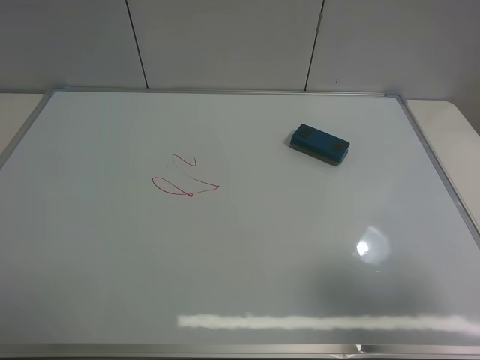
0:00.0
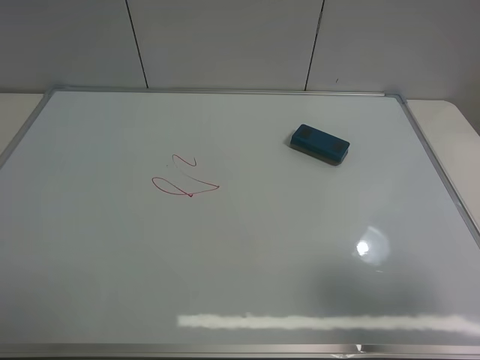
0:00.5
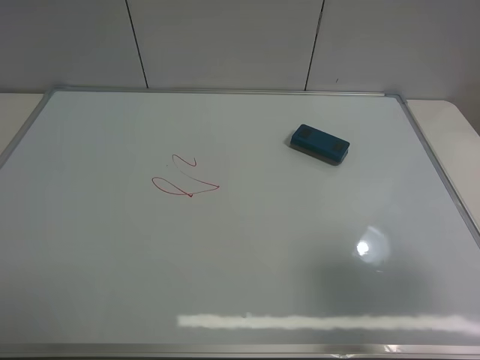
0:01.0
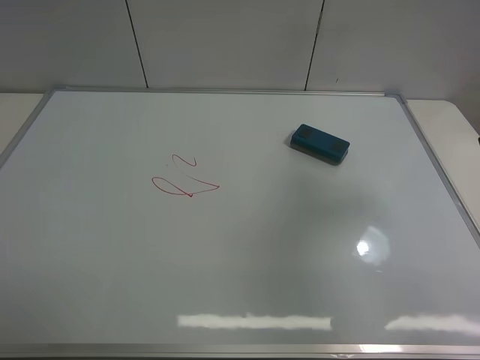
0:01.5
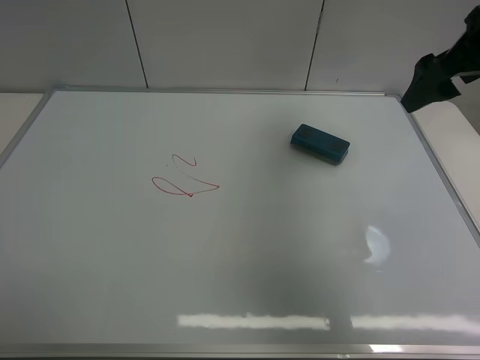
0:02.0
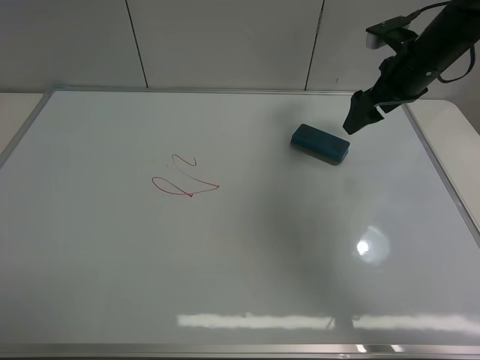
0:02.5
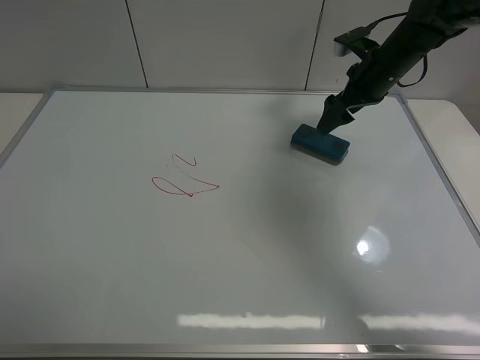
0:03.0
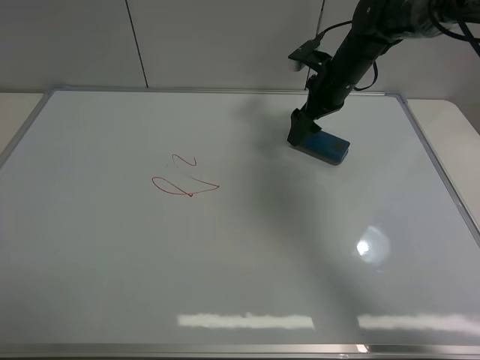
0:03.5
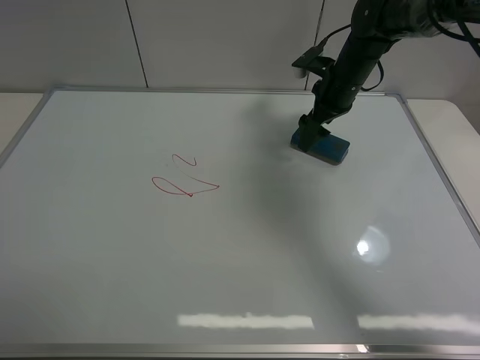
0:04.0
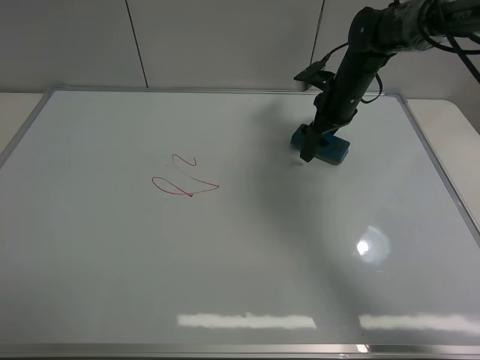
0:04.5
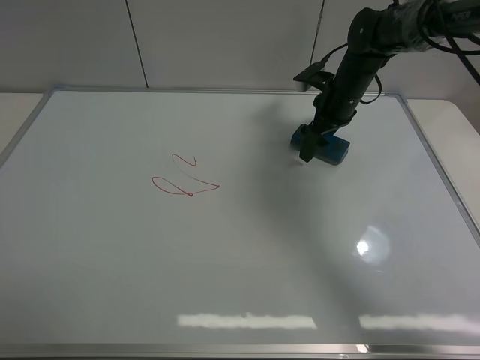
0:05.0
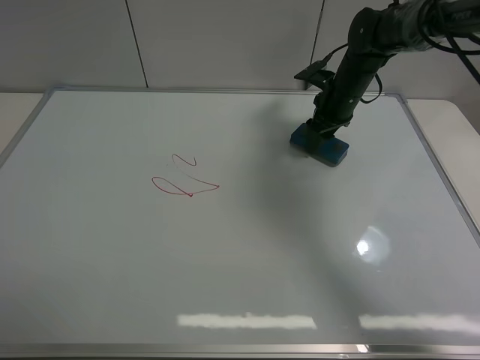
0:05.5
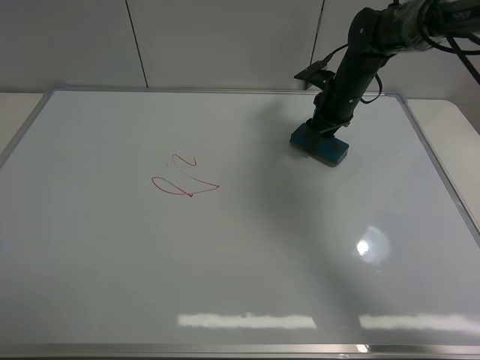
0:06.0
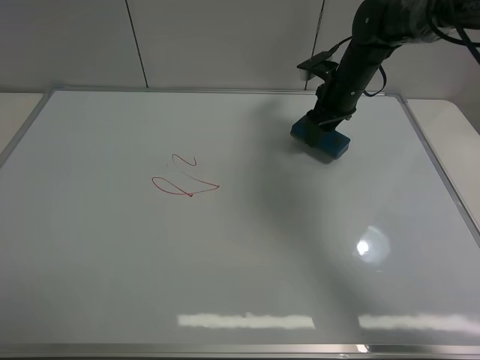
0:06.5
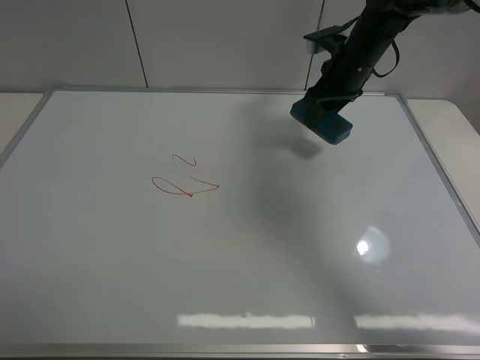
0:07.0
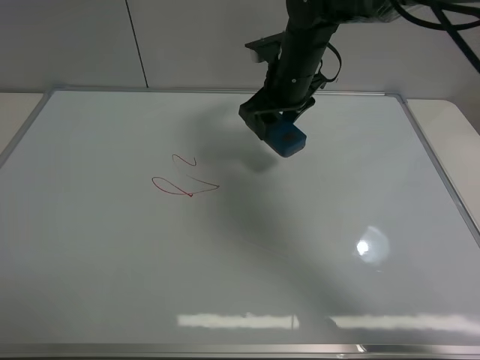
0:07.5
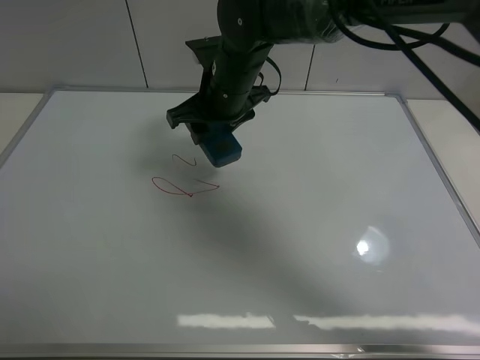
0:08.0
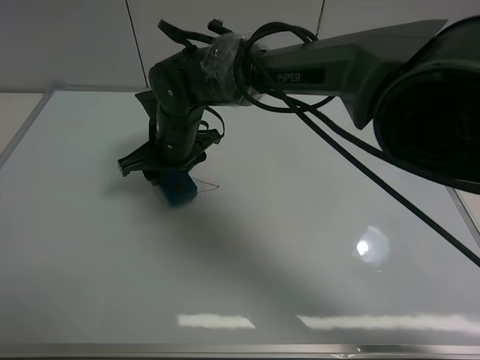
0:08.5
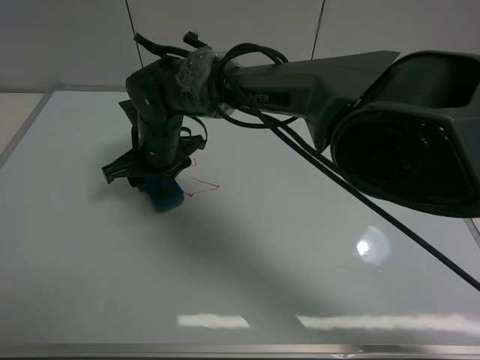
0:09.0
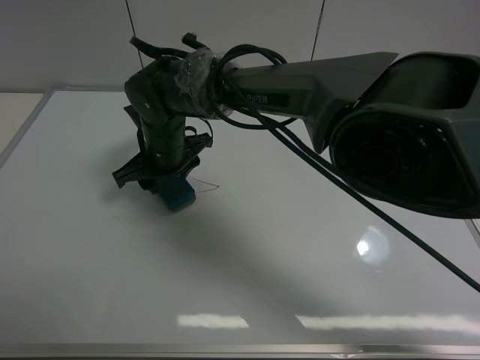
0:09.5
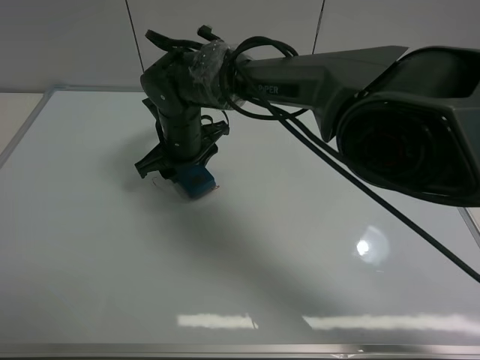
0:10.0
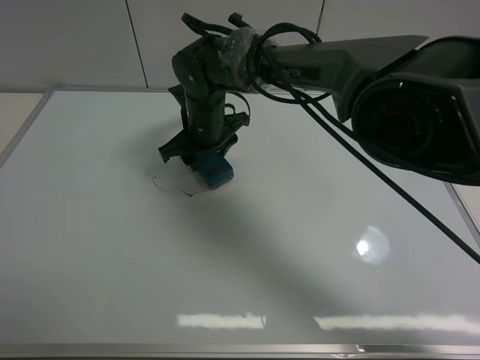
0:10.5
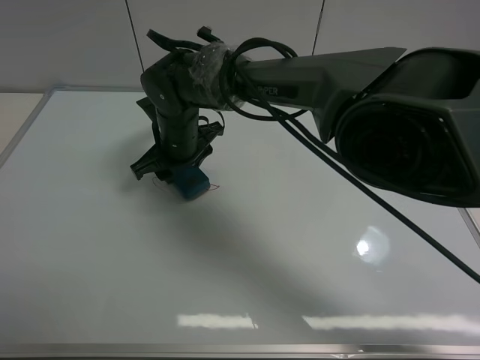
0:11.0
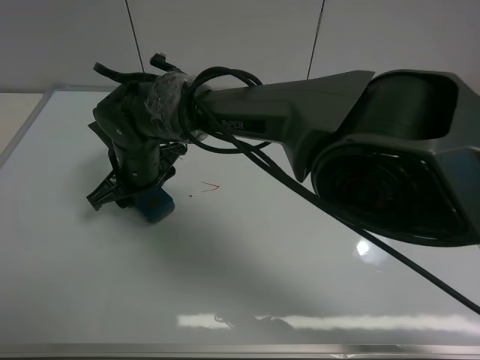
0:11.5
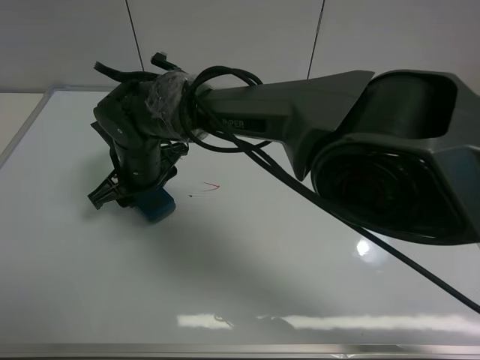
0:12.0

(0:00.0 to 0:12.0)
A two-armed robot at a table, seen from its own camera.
Task of the whole recording: use the right gripper to pick up the board eraser, wipe the notes on the whiteboard clean, and then put them back in place.
Step, 0:00.0 - 0:06.5: Pick up the board eraser with right gripper.
0:00.0 - 0:02.0: The right gripper goes approximately 30 cm forward.
0:02.0 - 0:04.0: The right gripper heads downward, forward and to the left, covering about 25 cm.
0:04.0 - 0:06.0: The right gripper closes.
0:06.0 - 0:08.0: The right gripper shifts some 20 cm to the left and backward.
0:08.0 - 0:10.0: The right gripper travels downward and to the left by approximately 10 cm.
0:10.0 - 0:12.0: The right gripper moves backward and to the left, about 5 cm.

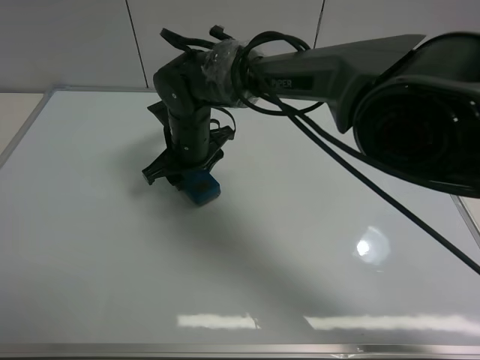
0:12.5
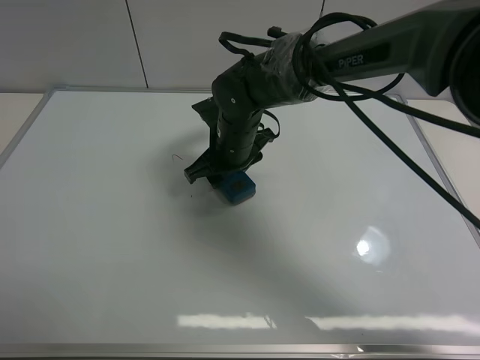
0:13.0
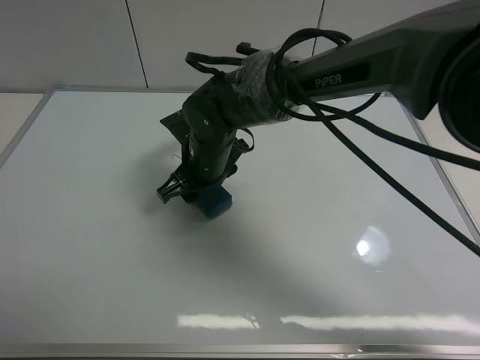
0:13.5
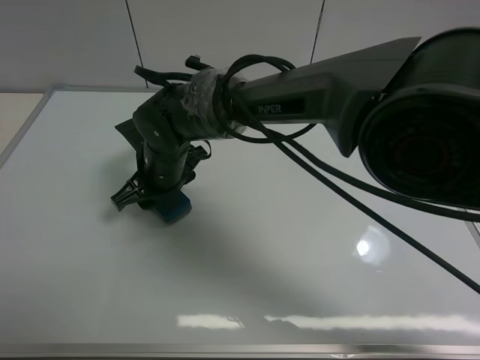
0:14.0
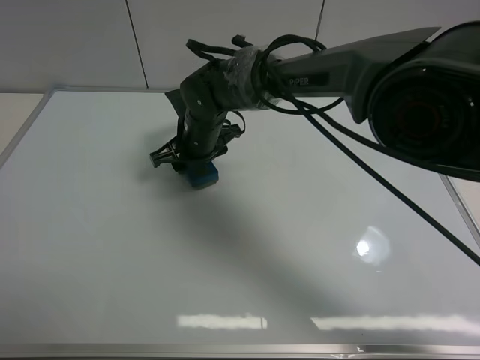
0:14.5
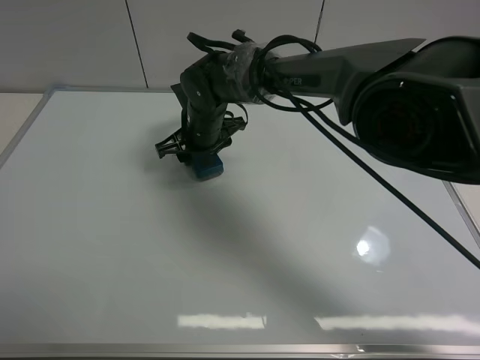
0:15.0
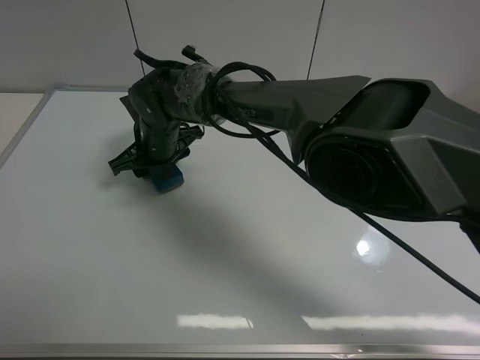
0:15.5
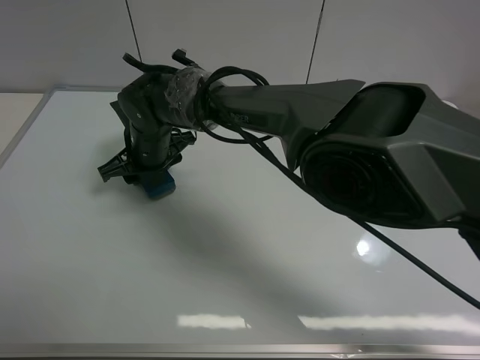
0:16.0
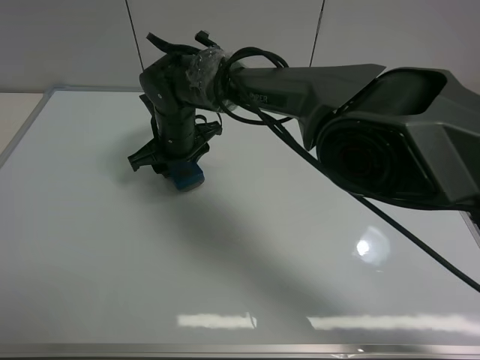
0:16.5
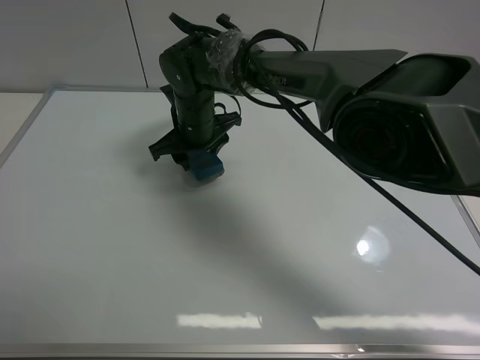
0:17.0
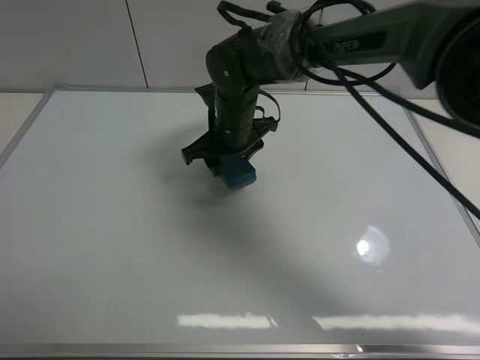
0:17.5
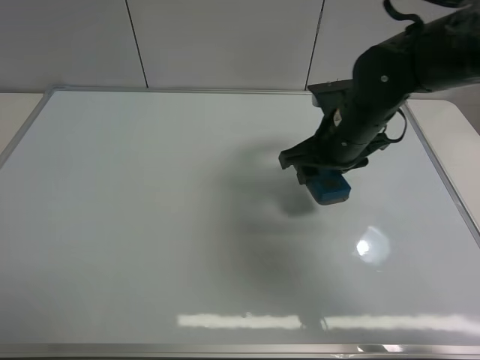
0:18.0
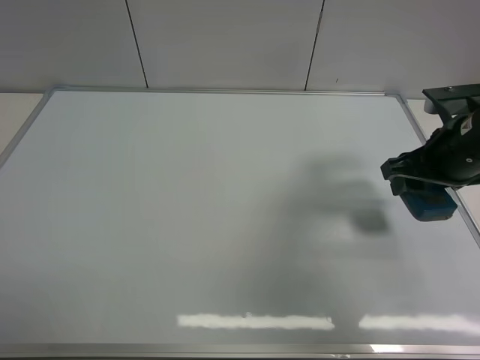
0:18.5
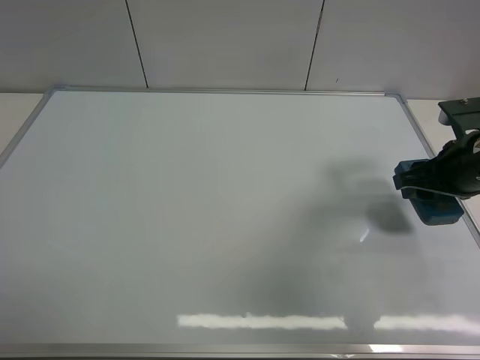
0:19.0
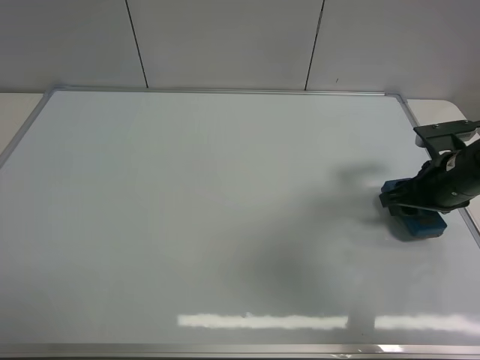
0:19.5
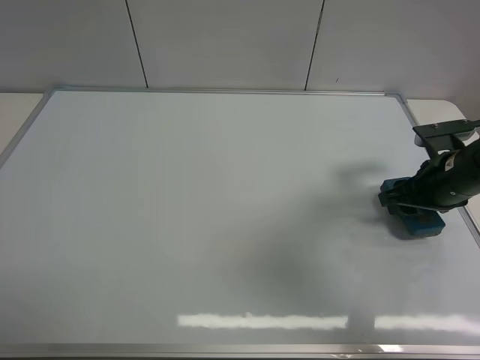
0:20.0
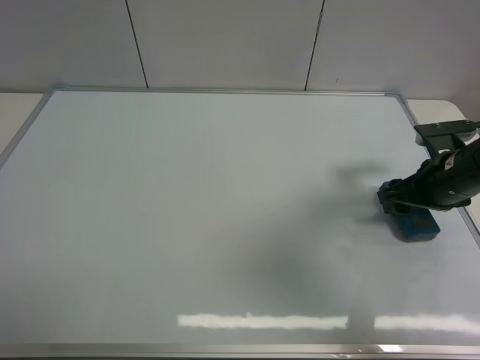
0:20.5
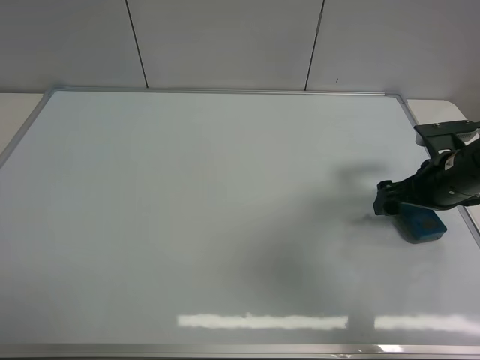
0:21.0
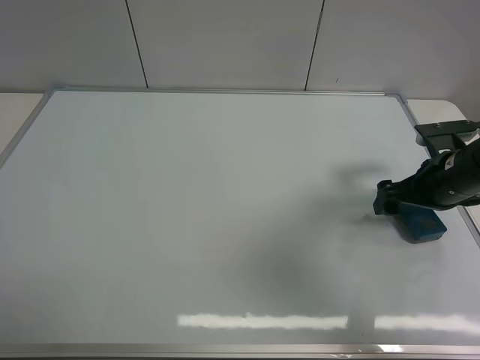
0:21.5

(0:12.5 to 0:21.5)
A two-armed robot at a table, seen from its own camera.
Task of the whole recording: use the right gripper to pick up the board eraser, wipe the notes on the whiteboard clean, and then put them back in place.
Step, 0:12.5 - 0:16.5: Wipe off the writing on the board with right gripper.
0:12.5 - 0:14.5: The right gripper goes left and right, some 10 cm each way, reversing 2 times.
0:14.5 - 0:17.0: The right gripper reaches approximately 10 cm to the left, then returns.
0:17.0 - 0:19.5: The right gripper shifts approximately 35 cm to the right.
0:19.5 - 0:21.5: The right gripper opens up.

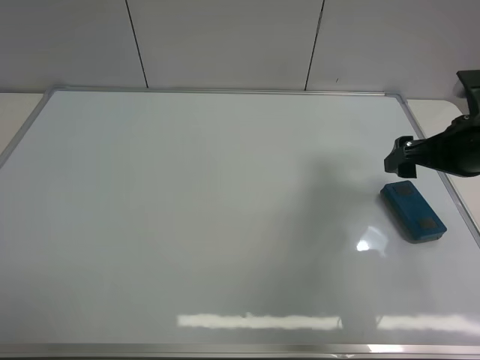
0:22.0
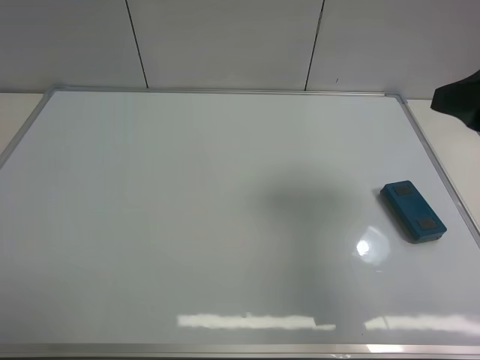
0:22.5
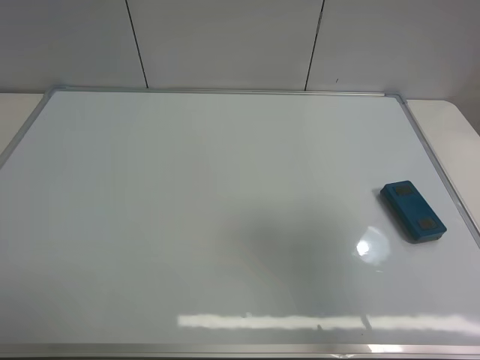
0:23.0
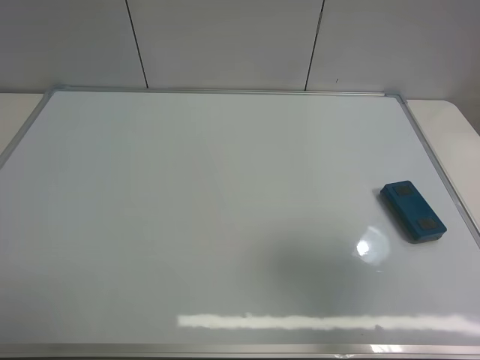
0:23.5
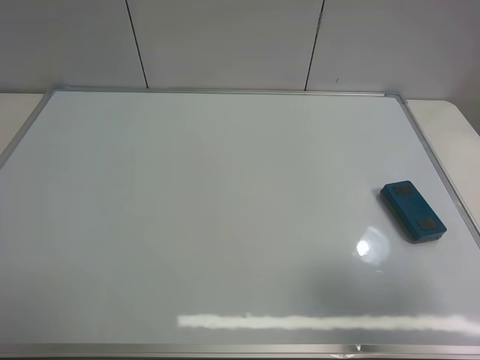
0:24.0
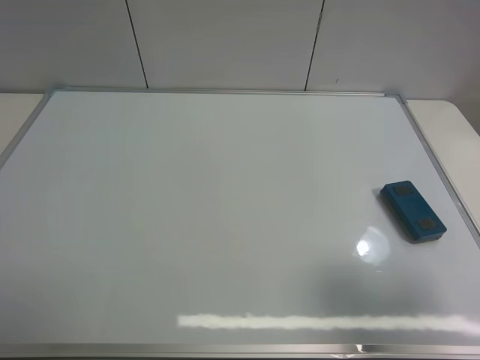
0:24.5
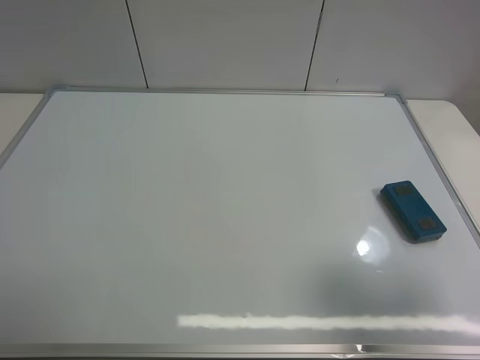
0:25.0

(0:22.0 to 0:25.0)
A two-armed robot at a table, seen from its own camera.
Task of the whole recording: use the right gripper to pick up the board eraser, wipe the notes on the whiteboard clean, and then put them back in place.
0:22.0 - 0:23.5: The right gripper moves backward and upward, approximately 25 cm.
0:23.5 - 0:25.0: The right gripper moves roughly 5 cm.

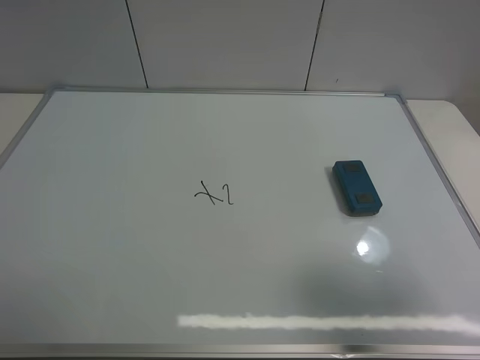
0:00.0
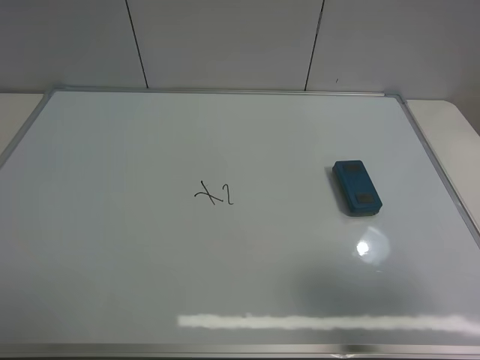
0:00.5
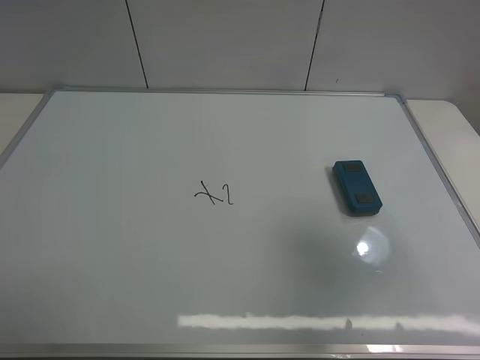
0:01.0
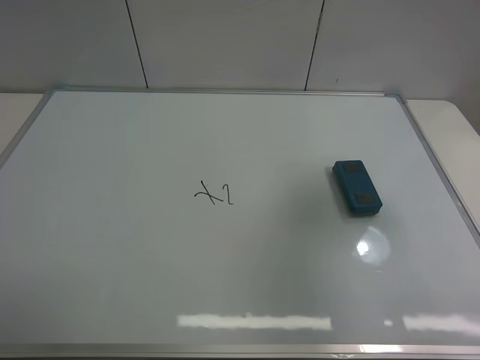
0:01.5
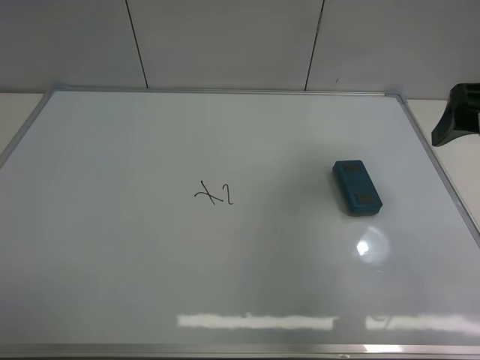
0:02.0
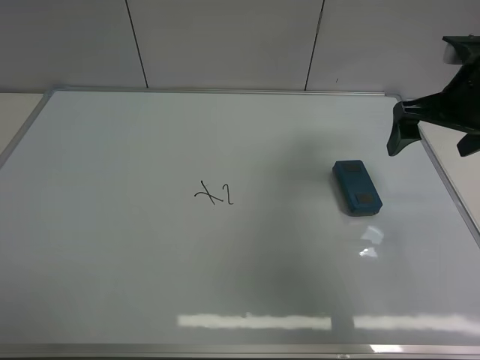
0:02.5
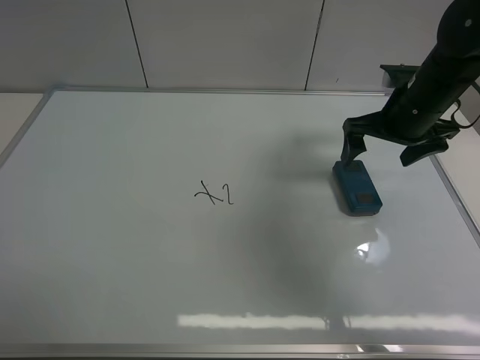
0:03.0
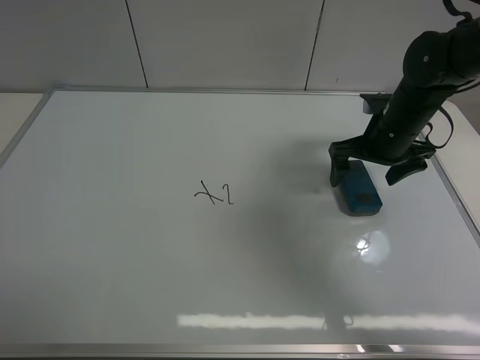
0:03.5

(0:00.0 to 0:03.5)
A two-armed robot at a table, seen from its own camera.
Task of the whole recording: use the right gripper to pick up the board eraser, wipe the notes on the whiteboard clean, and then put them back in place.
0:00.0 - 0:02.0: The right gripper shifts roughly 25 cm forward.
0:02.0 - 0:03.5: The right gripper moves downward, forward and to the left, some 20 cm.
